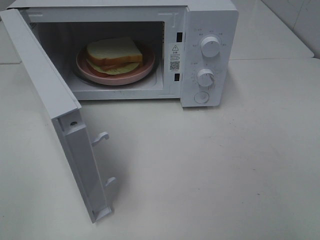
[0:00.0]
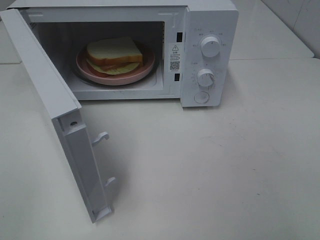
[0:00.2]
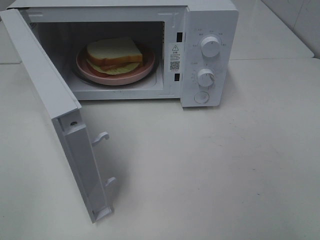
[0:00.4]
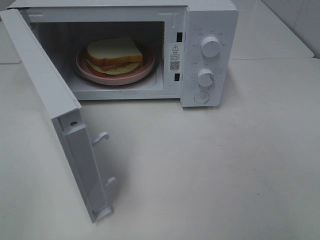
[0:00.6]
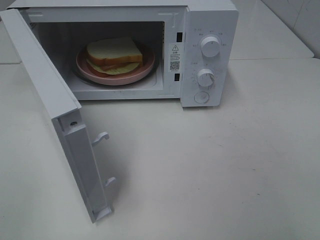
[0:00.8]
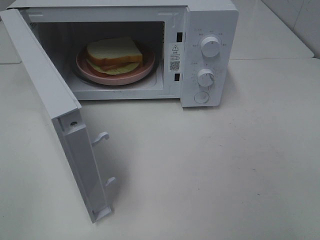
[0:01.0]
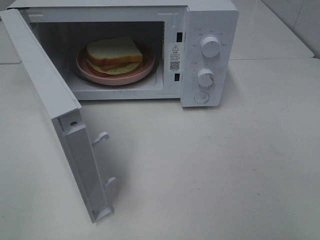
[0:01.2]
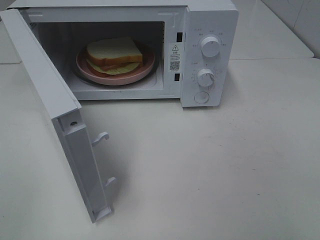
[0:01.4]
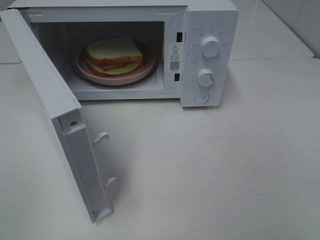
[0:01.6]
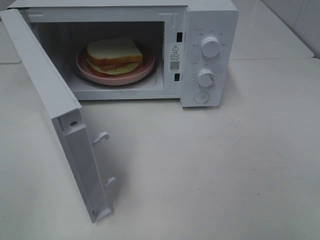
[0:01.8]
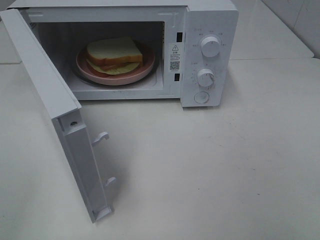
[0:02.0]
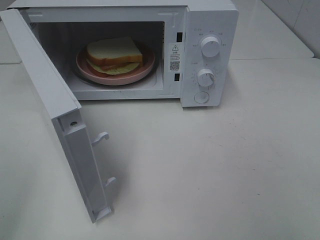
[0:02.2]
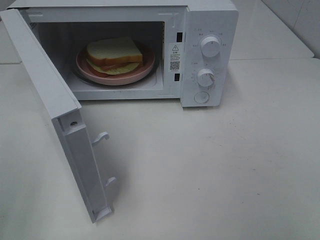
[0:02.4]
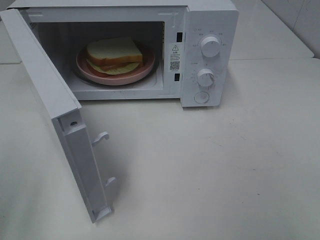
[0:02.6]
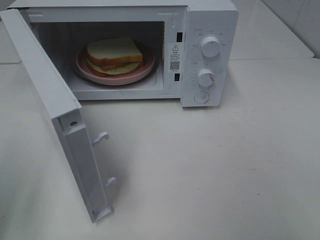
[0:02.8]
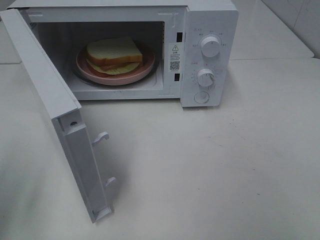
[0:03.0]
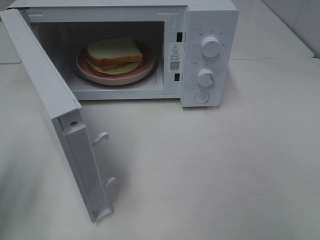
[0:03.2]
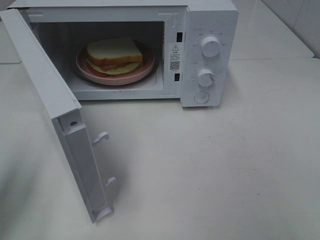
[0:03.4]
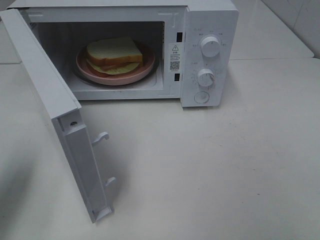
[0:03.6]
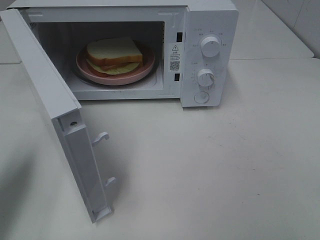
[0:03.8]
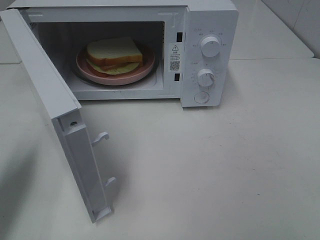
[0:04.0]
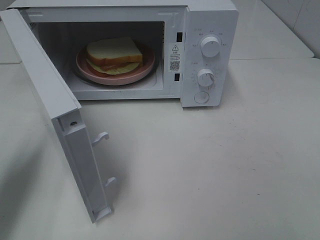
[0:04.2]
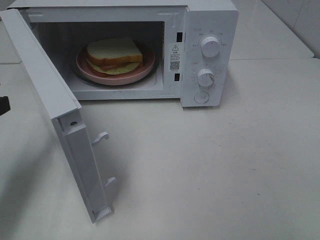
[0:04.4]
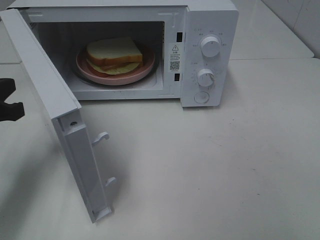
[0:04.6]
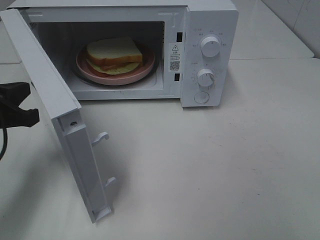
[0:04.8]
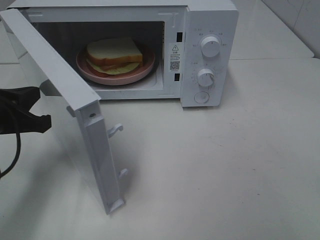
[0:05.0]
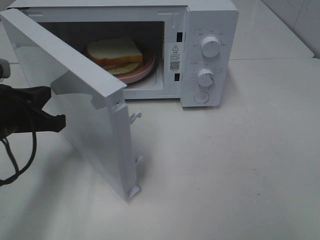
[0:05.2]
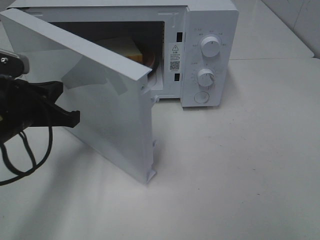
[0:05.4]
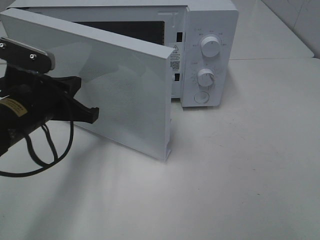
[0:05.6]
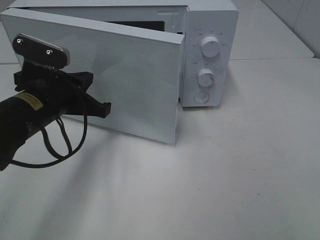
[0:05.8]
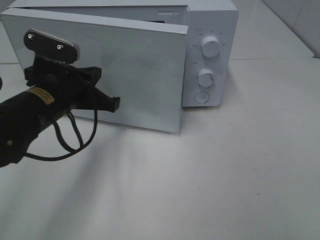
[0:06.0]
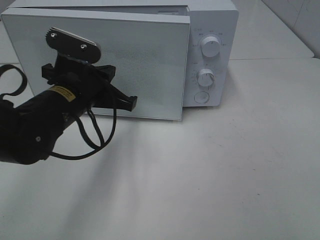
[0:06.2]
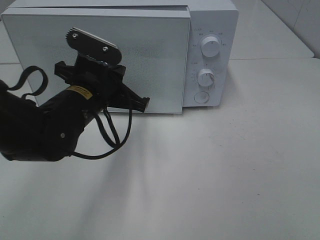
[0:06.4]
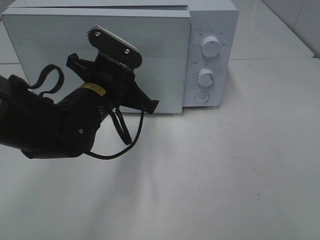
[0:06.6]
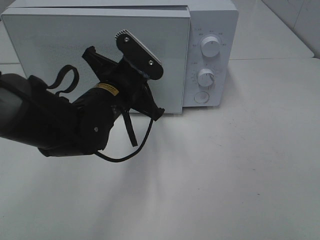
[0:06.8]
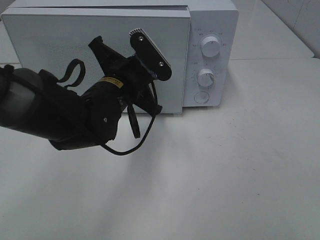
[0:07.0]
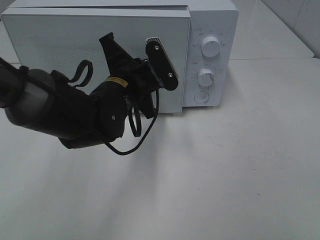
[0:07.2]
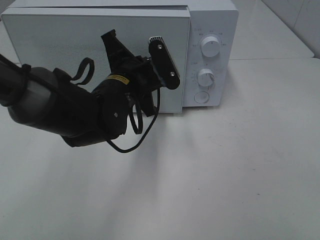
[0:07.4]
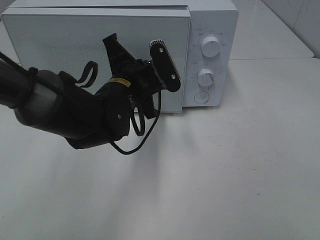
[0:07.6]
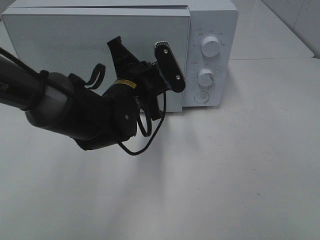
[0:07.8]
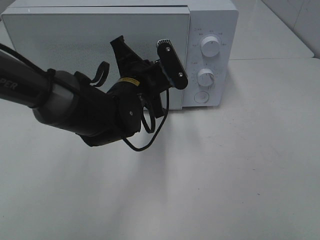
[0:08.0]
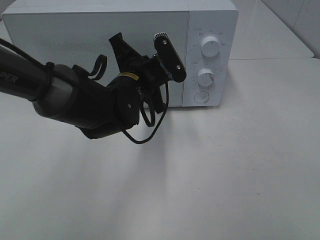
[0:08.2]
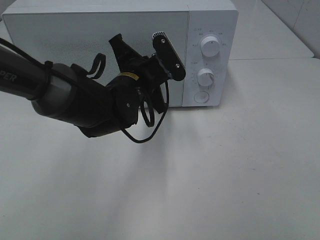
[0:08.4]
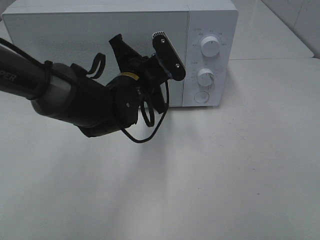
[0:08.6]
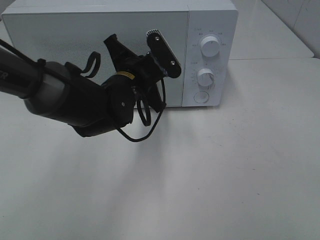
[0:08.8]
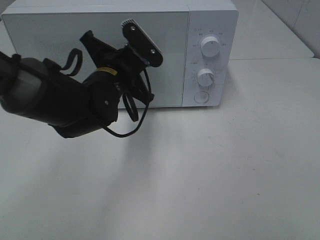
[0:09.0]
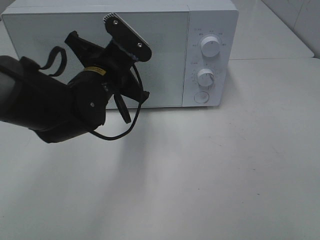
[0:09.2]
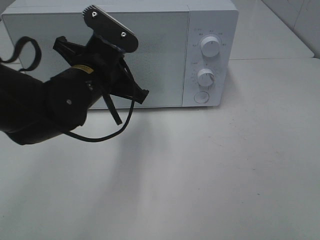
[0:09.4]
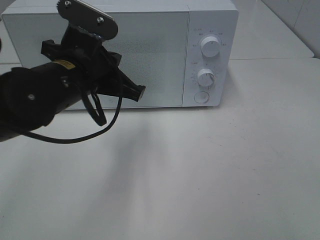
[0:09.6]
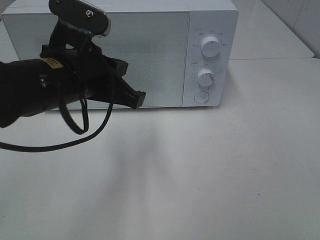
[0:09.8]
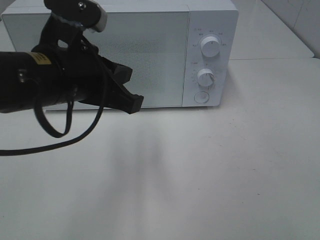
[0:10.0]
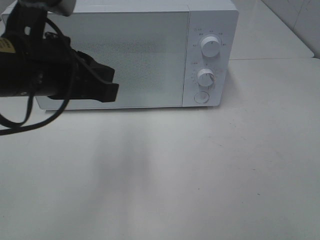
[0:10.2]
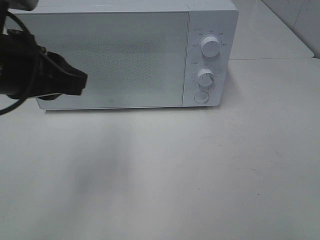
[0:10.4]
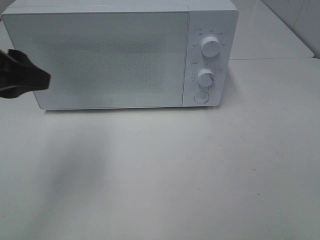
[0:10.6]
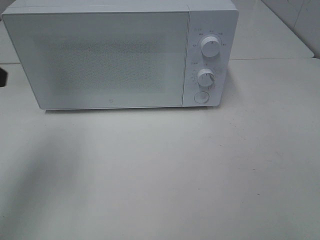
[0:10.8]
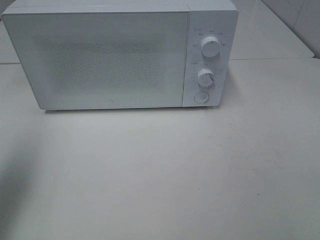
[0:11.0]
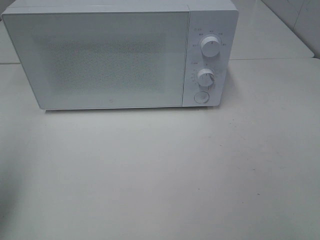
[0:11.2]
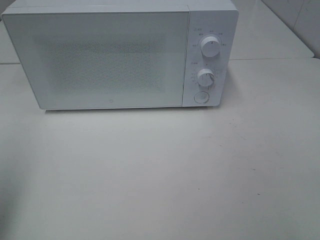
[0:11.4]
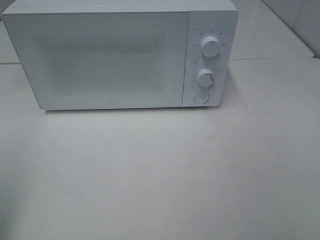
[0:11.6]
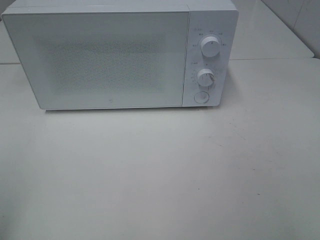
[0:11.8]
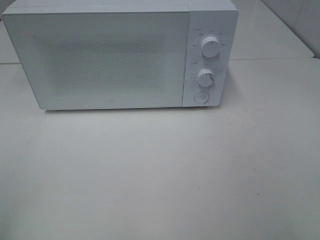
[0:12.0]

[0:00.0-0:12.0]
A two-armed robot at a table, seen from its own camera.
Task of the whole recording: Heat Sandwich.
Step, 0:00.0 to 0:09.4: Left hand: close the microwave door.
0:00.0 to 0:01.6: Both grippers stay put.
0:01.6 to 0:03.0: The left gripper goes roughly 10 cm forward.
0:03.0 to 0:04.4: The left gripper travels forward and downward by approximately 10 cm, and closes up.
0:04.4 to 0:06.0: The left gripper is displaced to the right and forward by roughly 15 cm.
0:06.0 to 0:07.6: The left gripper goes some 10 cm to the right.
0:07.6 to 0:09.0: The grippers stay close to where they were, moving slightly.
0:09.0 to 0:10.4: The left gripper shifts some 20 cm upward, backward and to the left.
0:10.4 to 0:12.0: The left gripper moves backward and to the left, some 25 cm, and opens up.

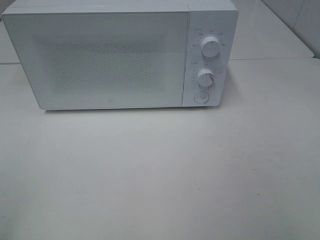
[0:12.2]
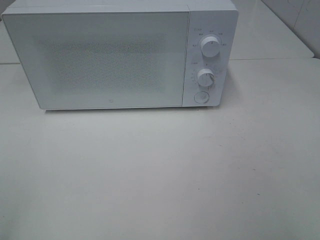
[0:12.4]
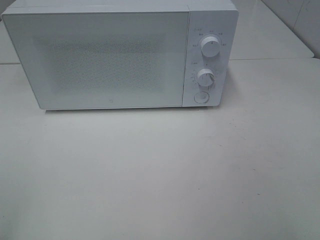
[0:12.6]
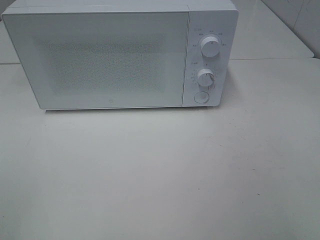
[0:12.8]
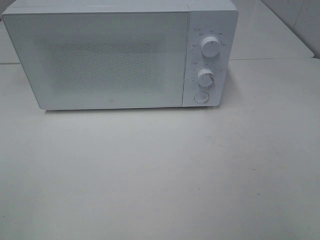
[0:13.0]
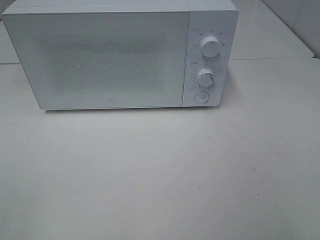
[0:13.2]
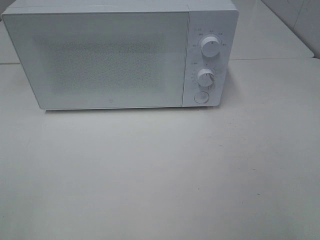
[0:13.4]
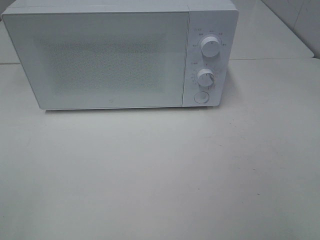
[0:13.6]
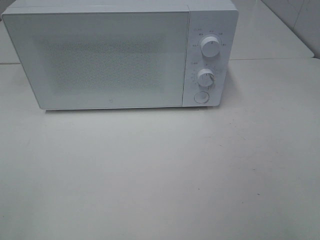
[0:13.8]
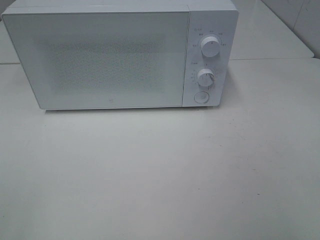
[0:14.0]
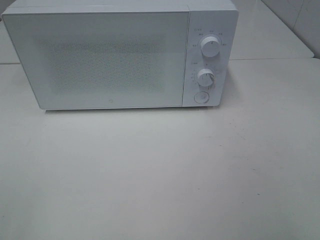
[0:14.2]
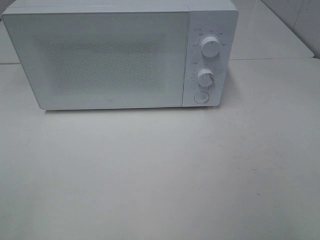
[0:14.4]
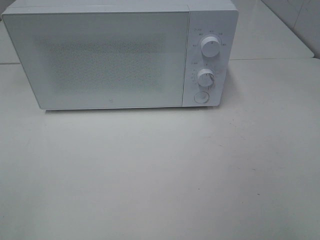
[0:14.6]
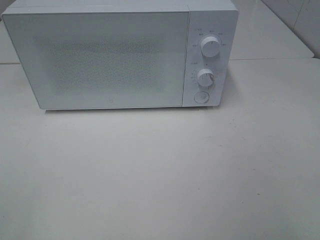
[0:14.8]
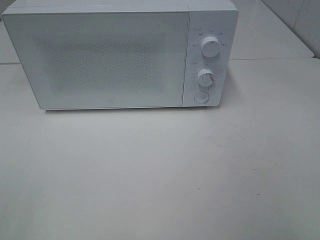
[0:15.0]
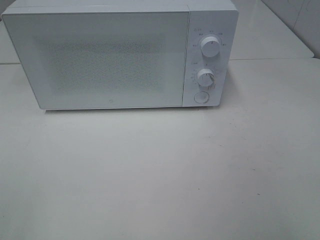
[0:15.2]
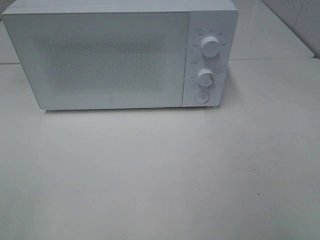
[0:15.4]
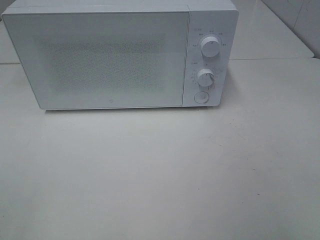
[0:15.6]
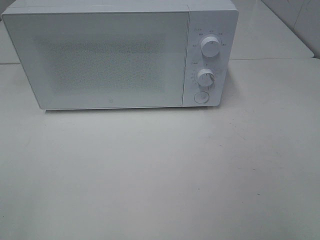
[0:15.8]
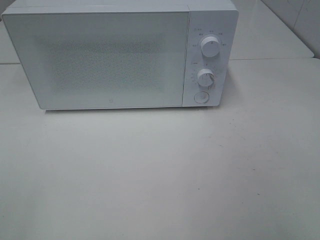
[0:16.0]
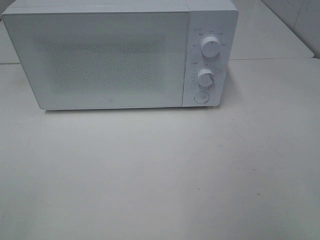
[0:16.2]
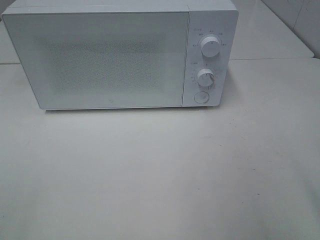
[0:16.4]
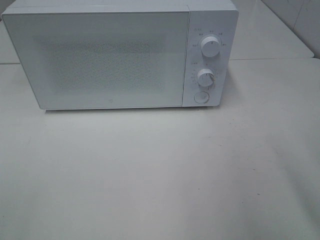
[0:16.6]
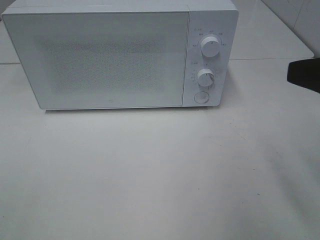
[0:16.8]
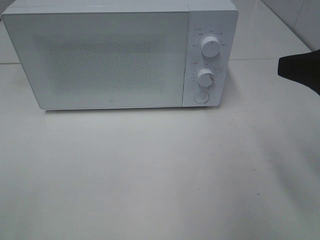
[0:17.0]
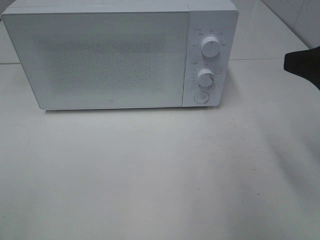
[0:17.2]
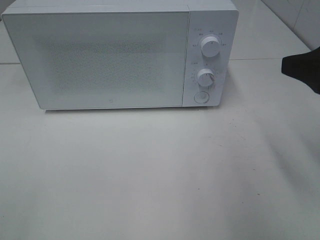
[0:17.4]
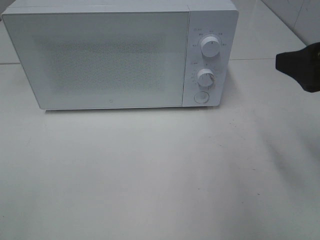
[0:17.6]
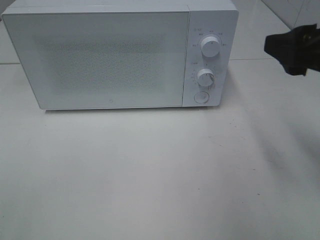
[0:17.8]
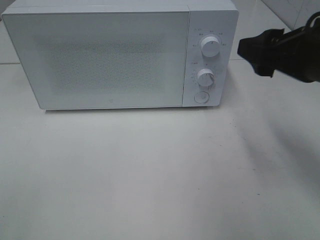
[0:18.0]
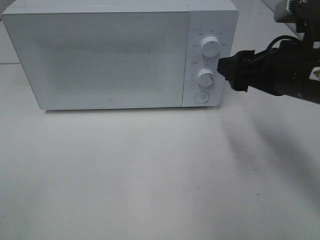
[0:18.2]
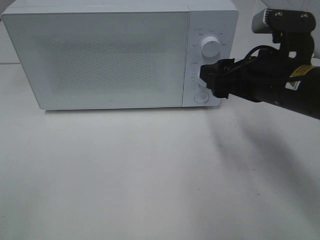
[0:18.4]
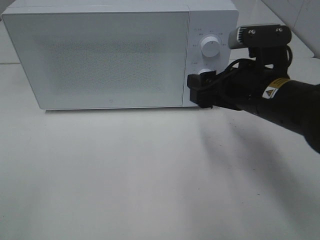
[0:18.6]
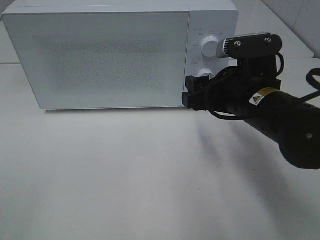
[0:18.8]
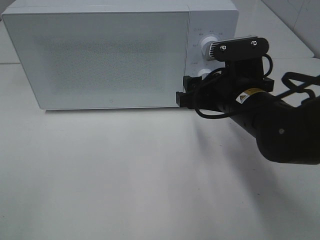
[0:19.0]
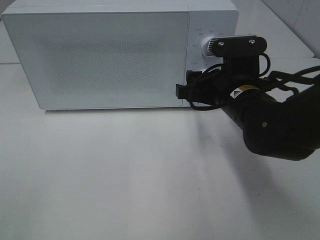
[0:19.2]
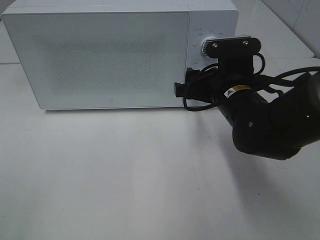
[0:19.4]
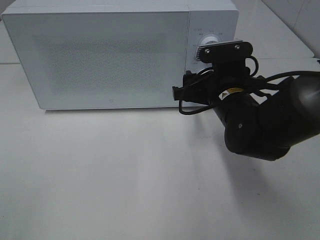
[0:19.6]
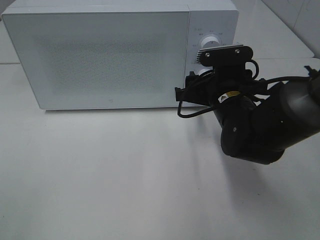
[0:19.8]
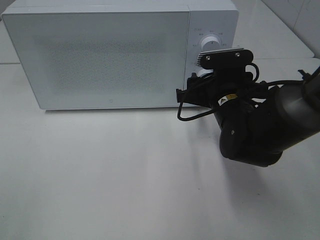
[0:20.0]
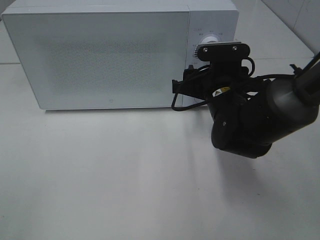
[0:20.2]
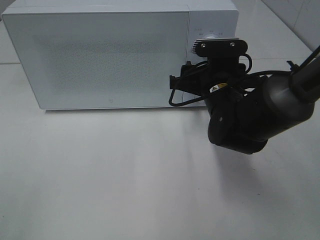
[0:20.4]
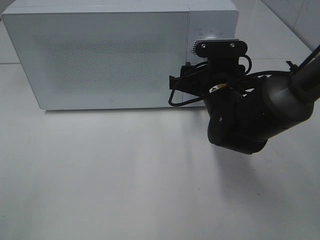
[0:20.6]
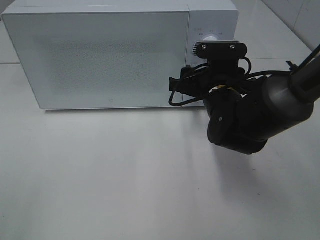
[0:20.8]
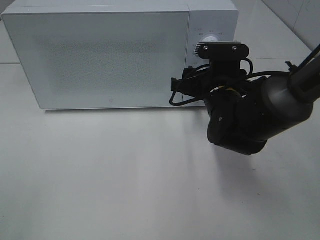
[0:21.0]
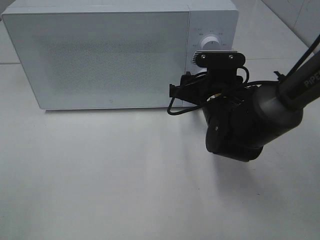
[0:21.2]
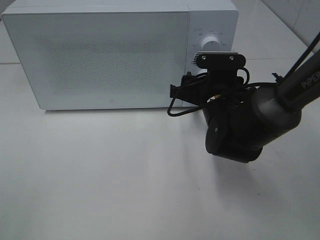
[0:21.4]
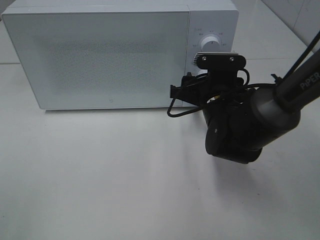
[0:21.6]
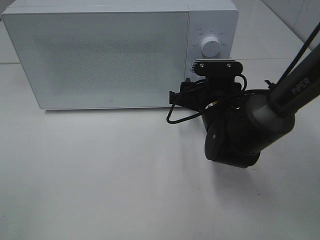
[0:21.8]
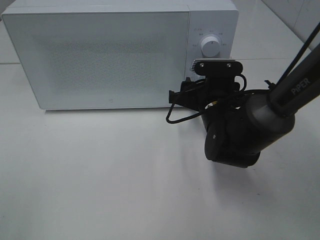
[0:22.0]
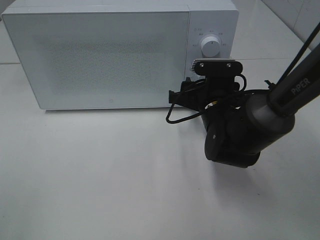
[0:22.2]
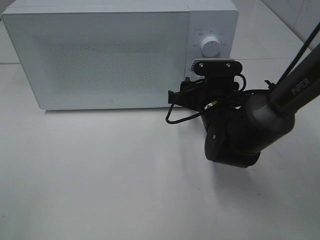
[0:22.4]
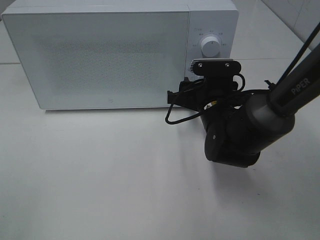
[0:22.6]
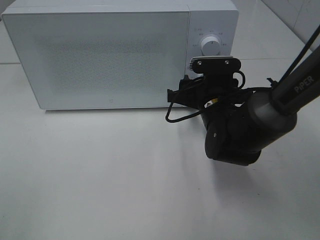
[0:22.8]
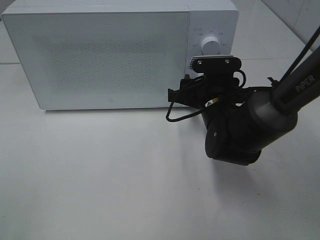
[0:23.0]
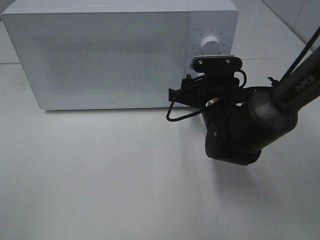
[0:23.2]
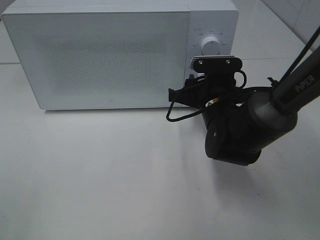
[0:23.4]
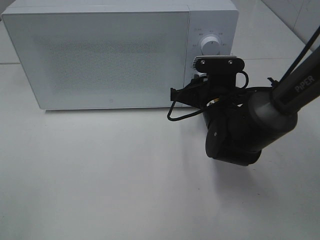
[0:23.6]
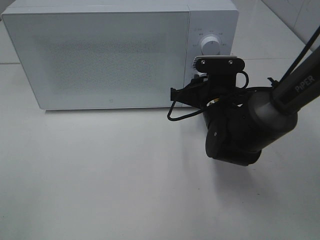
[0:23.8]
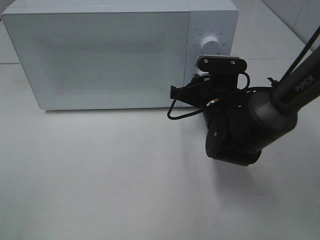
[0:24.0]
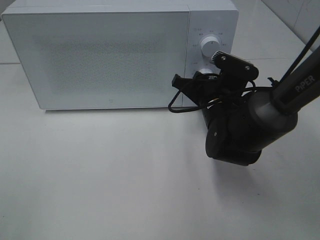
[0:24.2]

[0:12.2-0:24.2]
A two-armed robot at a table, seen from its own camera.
Task of the whole recording: Heat Sandwich.
0:13.8 to 0:15.2: The two grippers keep their place.
0:16.6 to 0:18.2: The right gripper travels forward, downward and to the left by roughly 15 cm.
0:18.2 to 0:19.8: The right gripper is displaced downward, to the left and forward by some 15 cm.
0:19.8 to 0:21.2: The grippers stay close to where they were, moving slightly.
0:21.2 to 0:22.6: The two grippers keep their place.
